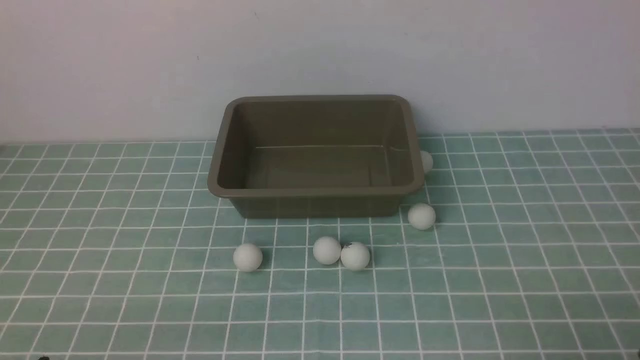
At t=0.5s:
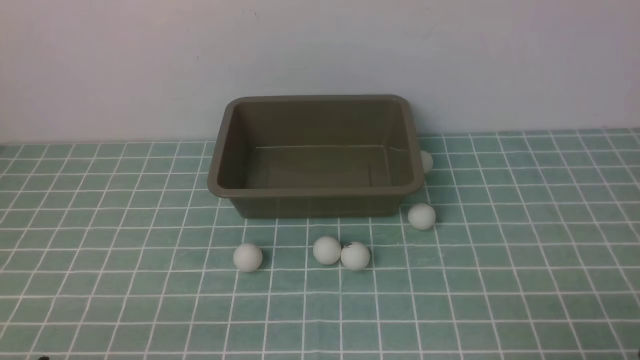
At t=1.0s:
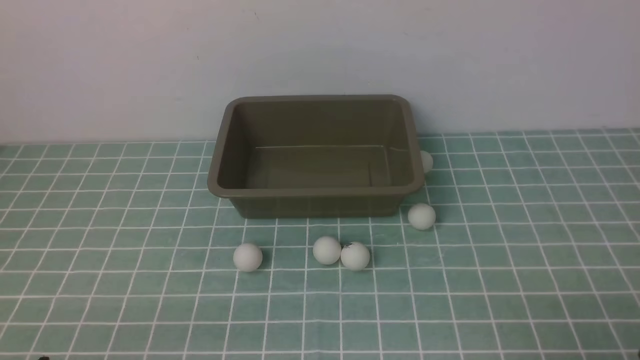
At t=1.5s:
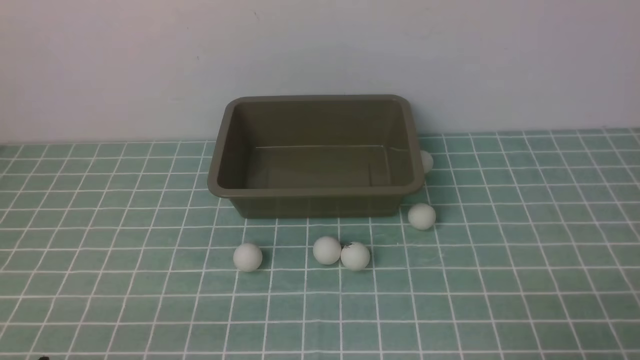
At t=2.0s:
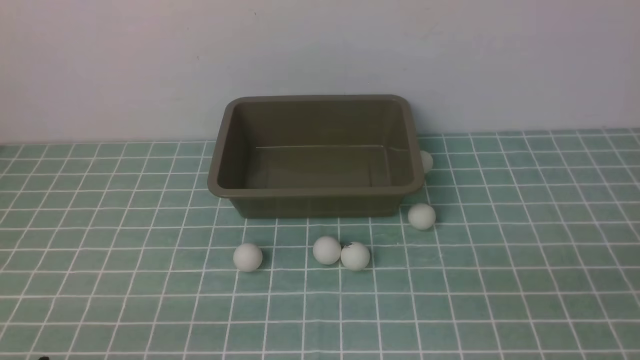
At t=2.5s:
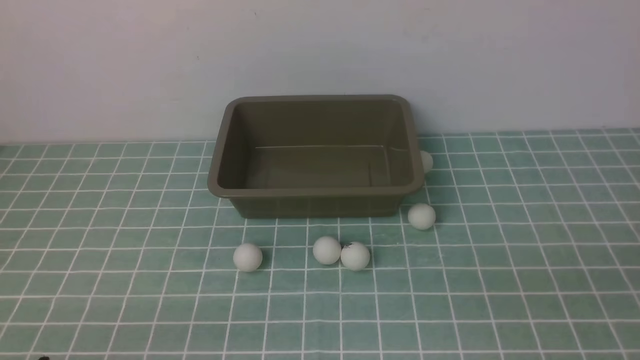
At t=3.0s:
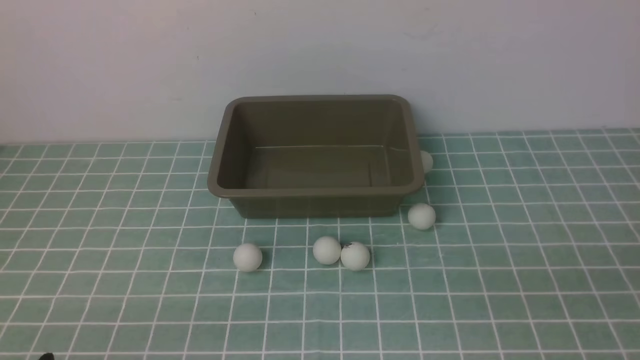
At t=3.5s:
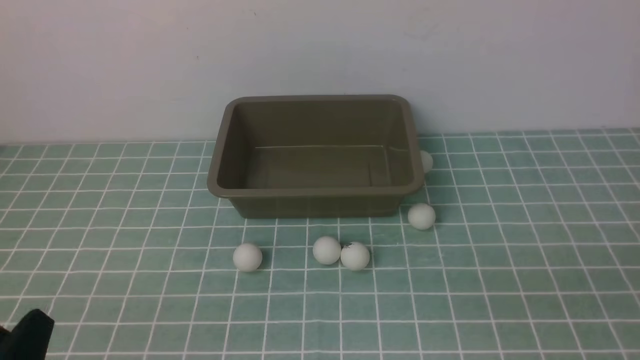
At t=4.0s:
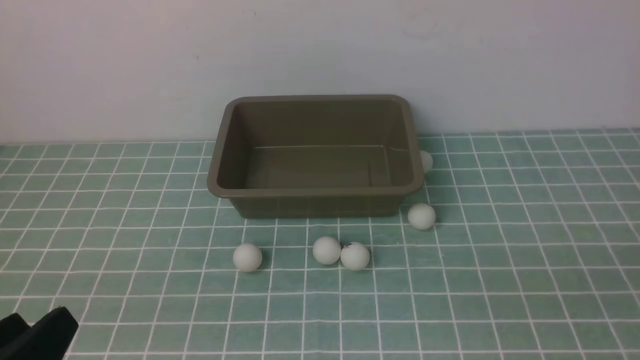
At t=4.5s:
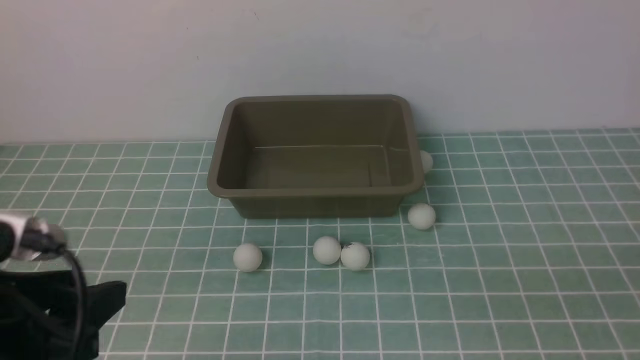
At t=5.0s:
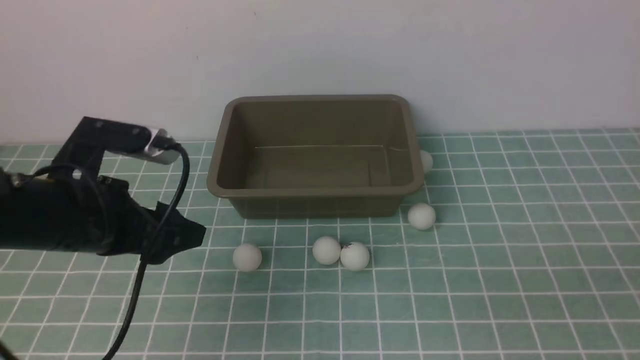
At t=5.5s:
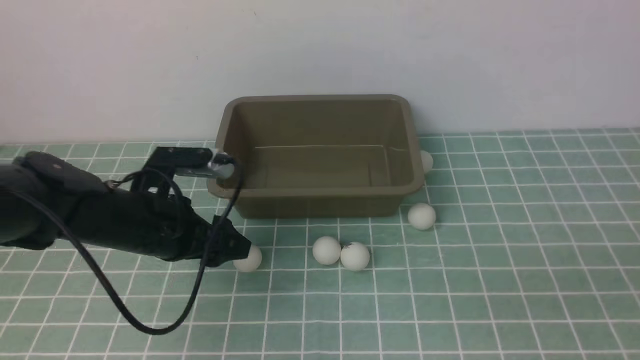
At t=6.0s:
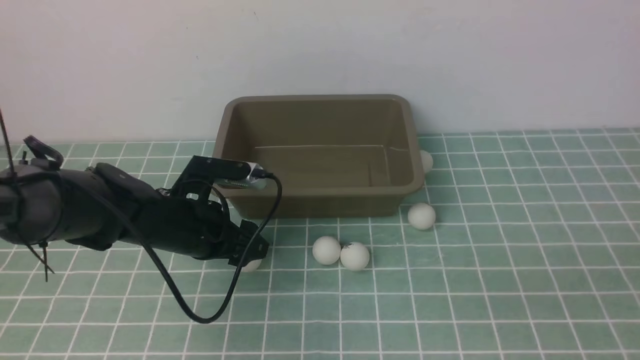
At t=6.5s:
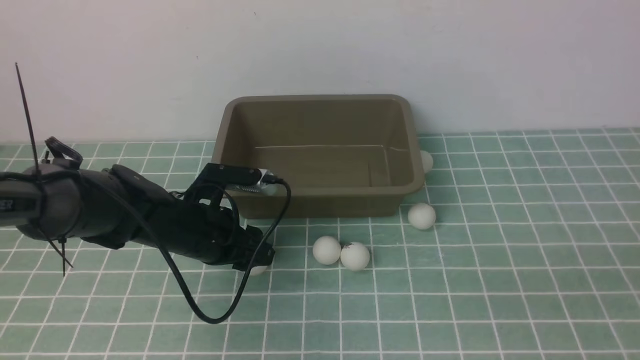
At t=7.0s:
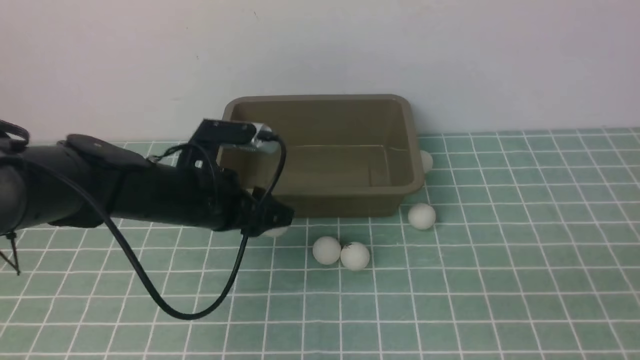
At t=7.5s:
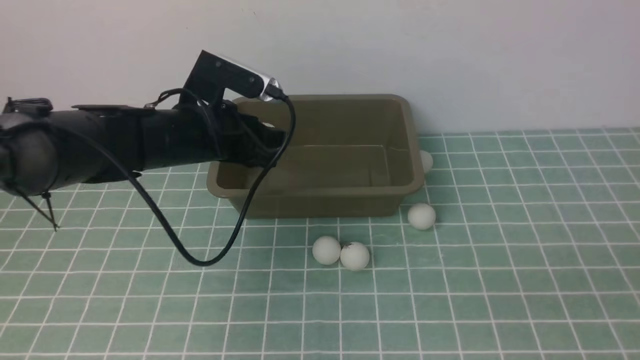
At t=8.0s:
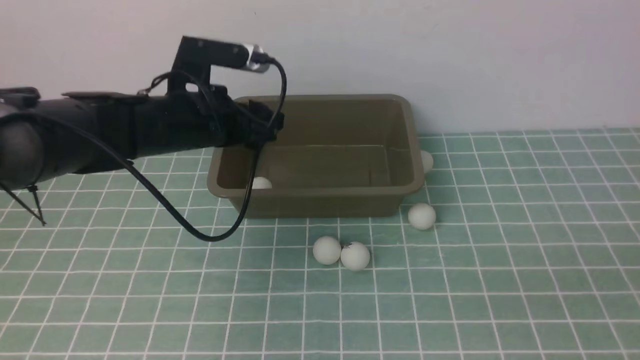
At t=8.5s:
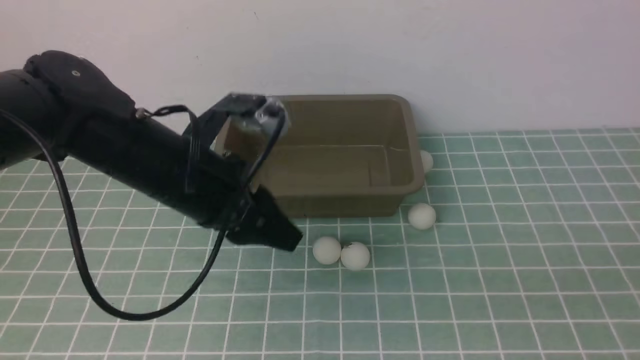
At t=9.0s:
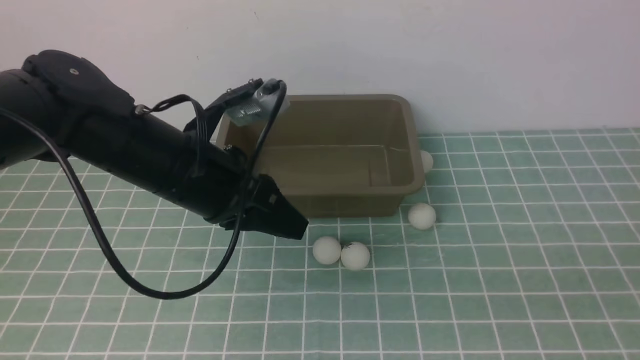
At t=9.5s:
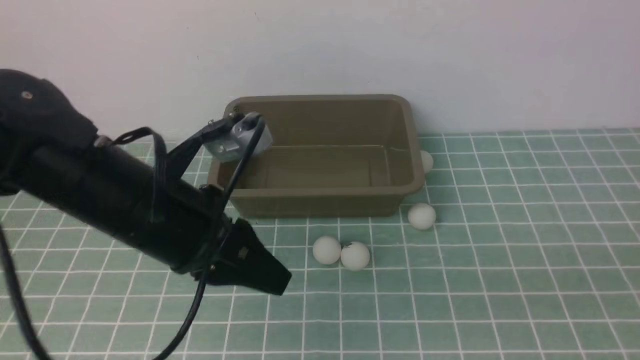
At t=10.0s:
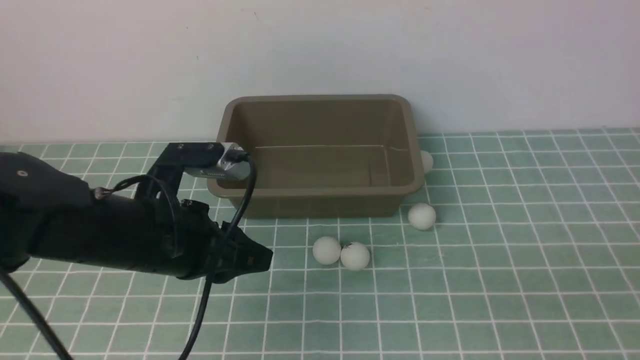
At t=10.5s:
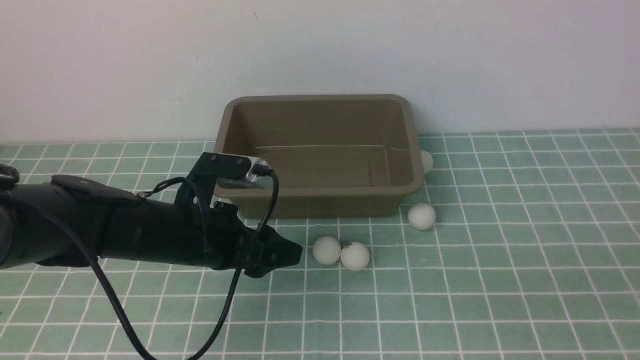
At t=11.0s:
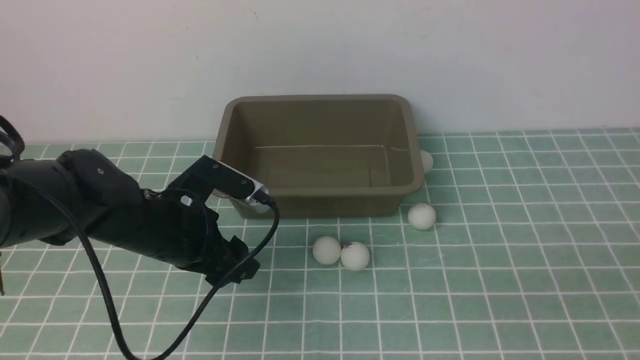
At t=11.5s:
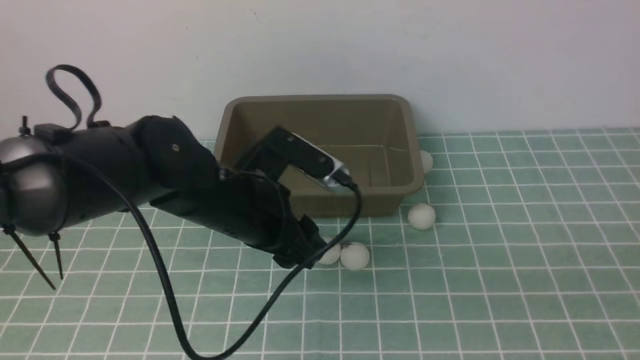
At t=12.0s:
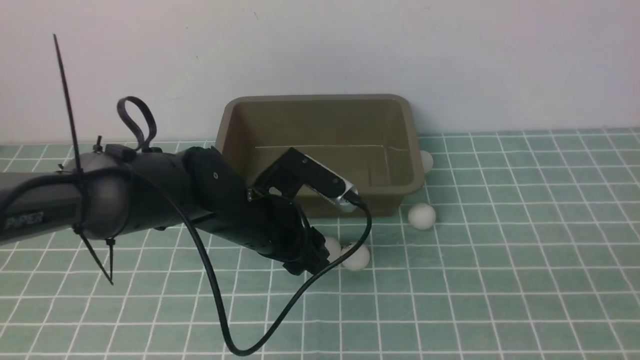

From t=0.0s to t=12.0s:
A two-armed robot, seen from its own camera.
Step, from t=0.0s to t=7.0s: use the left arm to clamp the table tennis ball closest to it.
Step, from t=7.5s to t=8.0s: use the left arm to put the table tennis ball into the box.
From t=2.0s to t=4.0s: The left gripper moves upward, roughly 5 cm.
From t=4.0s to t=6.0s: The left gripper shifts some 30 cm forward.
From t=6.0s to t=8.0s: The left gripper travels upward by some 15 cm.
From t=8.0s to t=10.0s: The left gripper goes some 10 cm backward, and closes.
From t=10.0s to t=12.0s: The left gripper moves to the right and forward, some 10 cm, and opens up.

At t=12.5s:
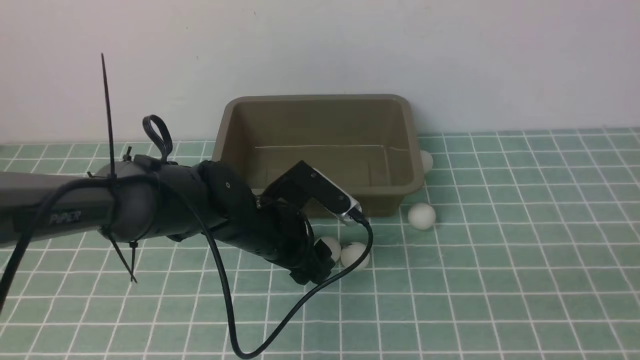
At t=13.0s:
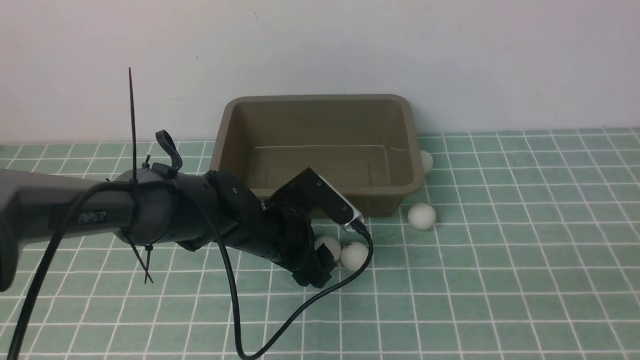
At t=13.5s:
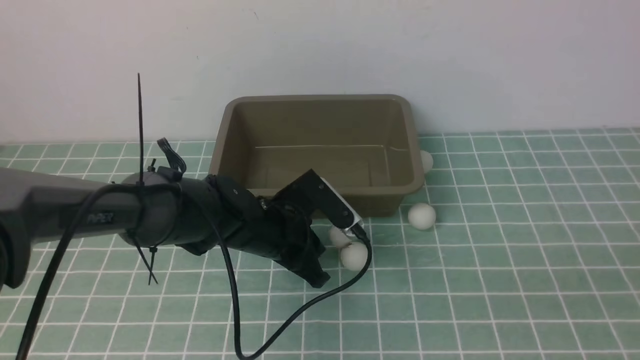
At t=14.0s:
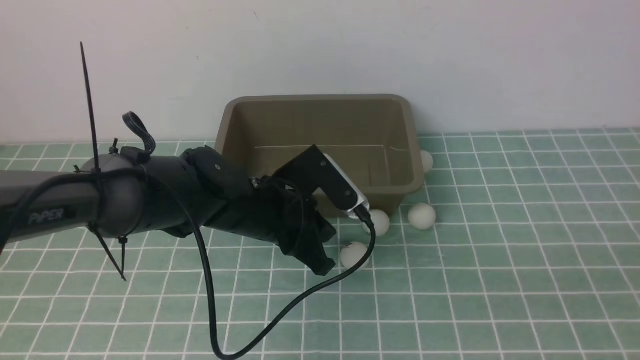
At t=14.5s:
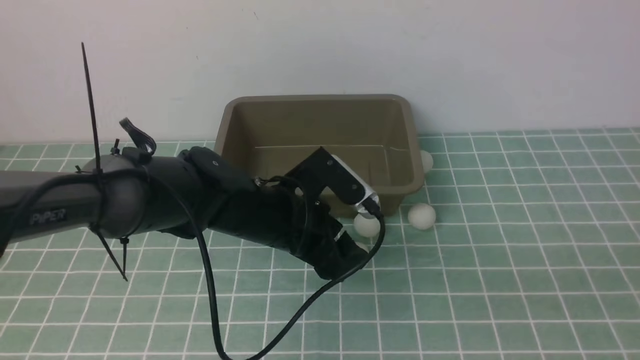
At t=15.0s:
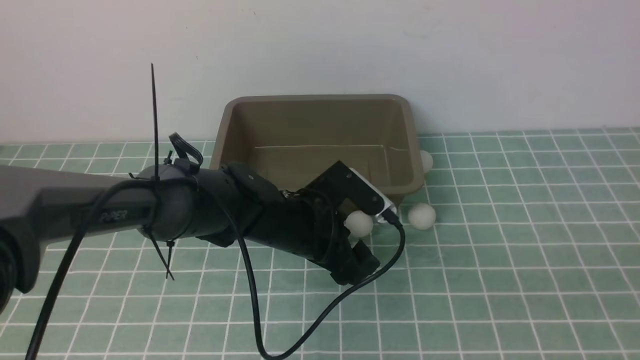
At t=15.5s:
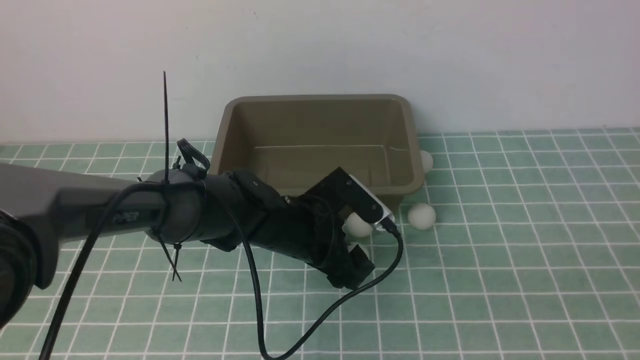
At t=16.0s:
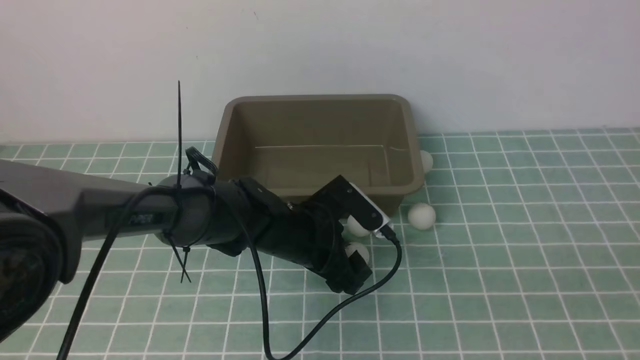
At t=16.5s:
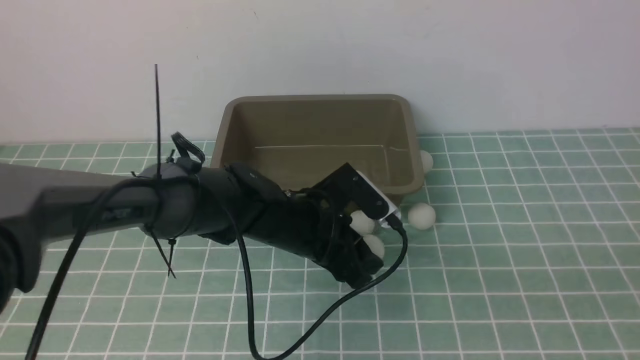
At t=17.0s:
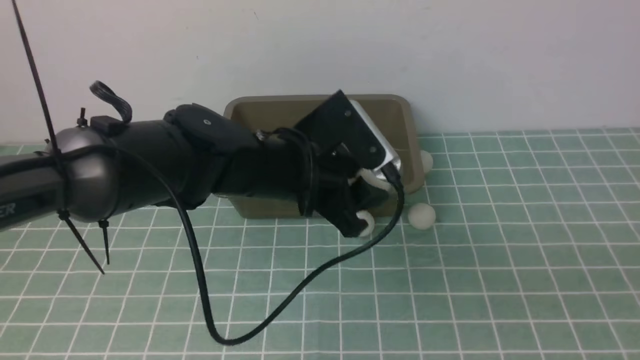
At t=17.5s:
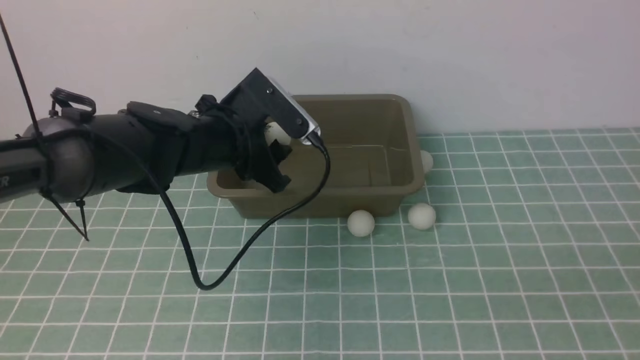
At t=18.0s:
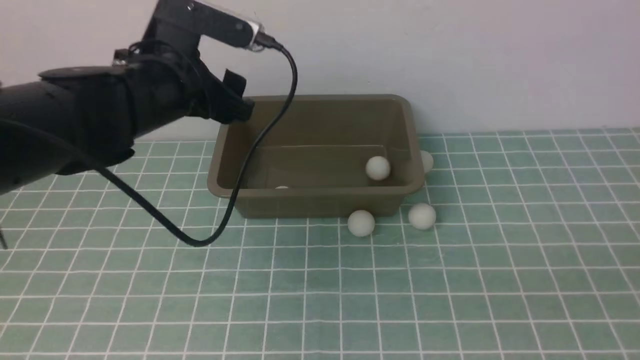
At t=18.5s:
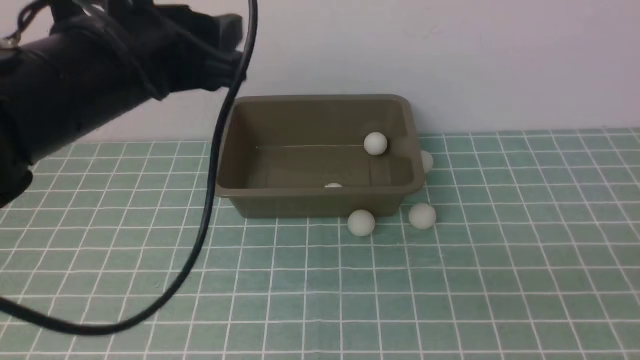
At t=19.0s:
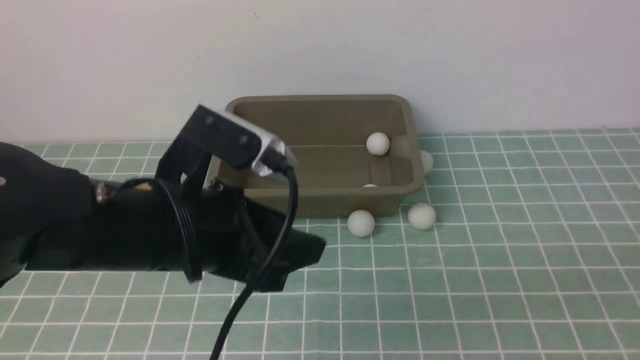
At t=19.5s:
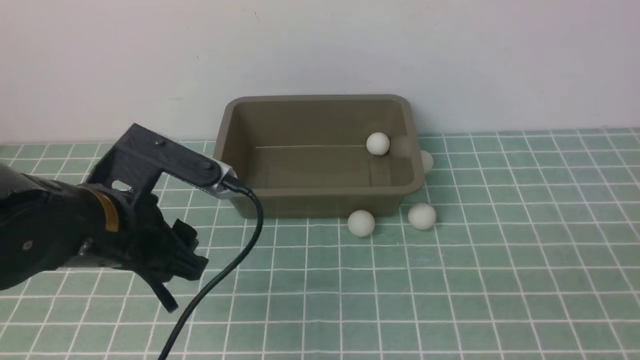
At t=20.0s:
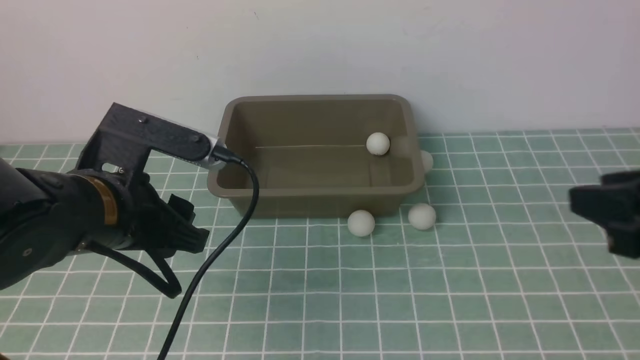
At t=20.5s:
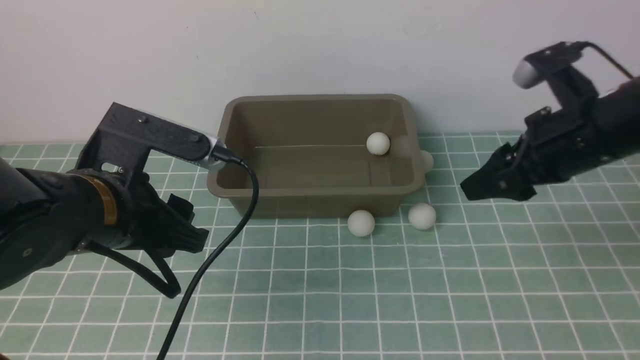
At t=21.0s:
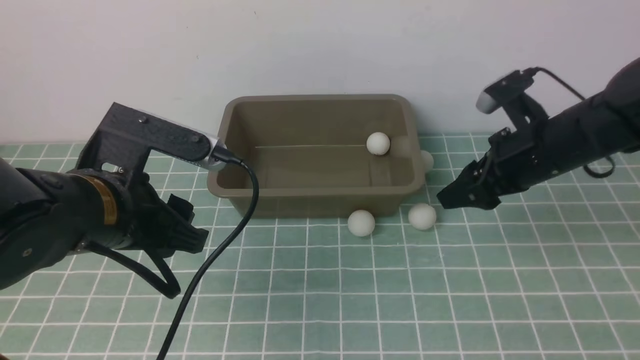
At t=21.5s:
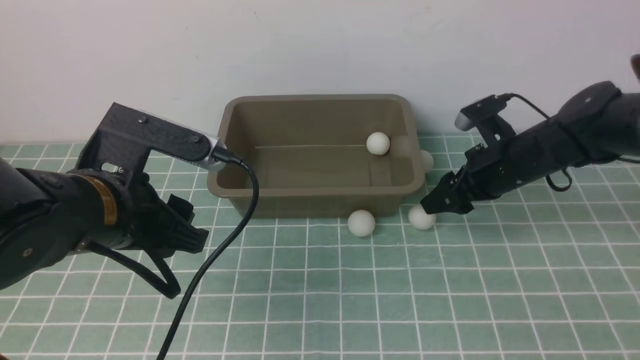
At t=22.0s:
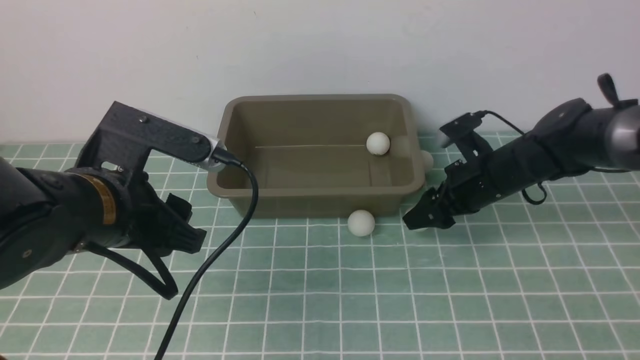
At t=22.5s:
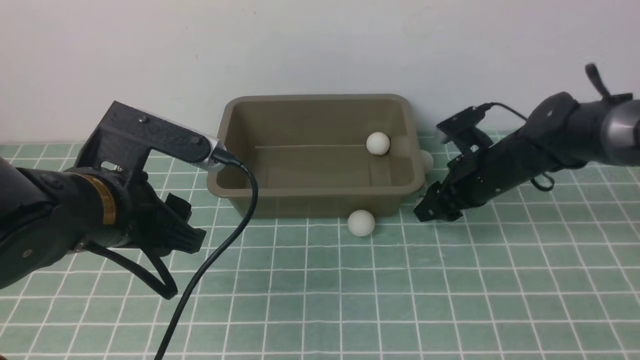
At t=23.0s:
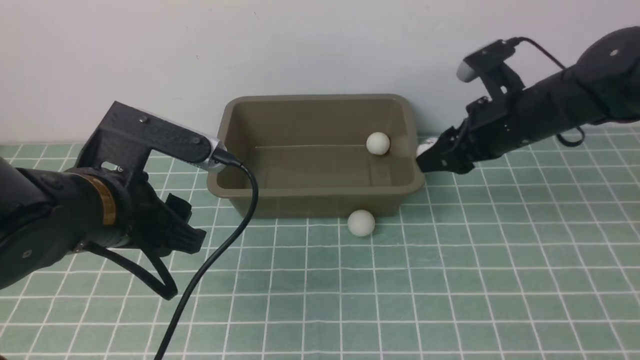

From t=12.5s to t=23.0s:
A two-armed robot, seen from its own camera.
Step, from t=12.5s to t=16.5s: use the left arm to clamp the table tennis ball closest to it.
Step, from t=17.0s to t=17.5s: use the left arm to put the table tennis ball into the box.
Step, from t=18.0s to t=22.5s: use the right arm to clamp the table tennis ball closest to it.
From t=12.5s to t=14.5s: The left gripper closes, then reopens.
From t=14.5s to t=16.5s: The left gripper closes its fingers.
From t=16.5s to t=19.0s: The left gripper goes some 20 cm upward, backward and to the left.
From t=19.0s to t=21.0s: The right gripper is displaced forward by roughly 35 cm, and opens. The left gripper travels to the left by roughly 5 cm.
From t=21.0s to t=23.0s: The right gripper goes downward and returns, about 5 cm each way.
